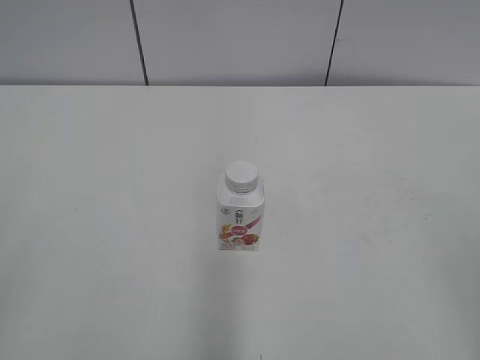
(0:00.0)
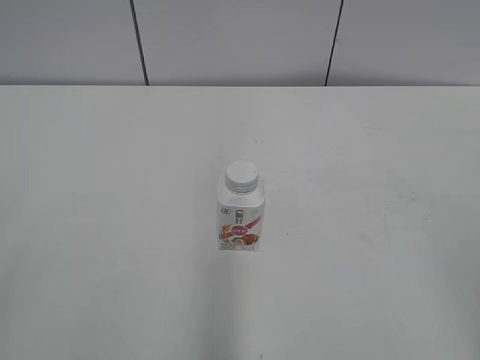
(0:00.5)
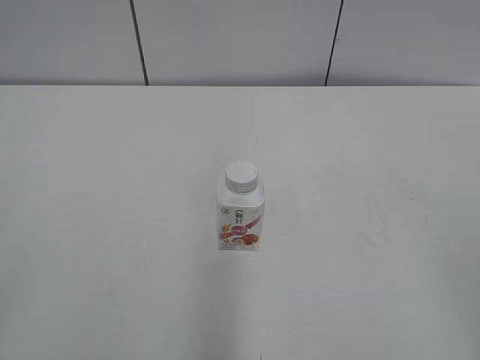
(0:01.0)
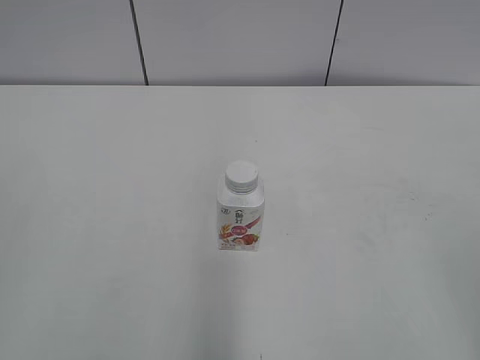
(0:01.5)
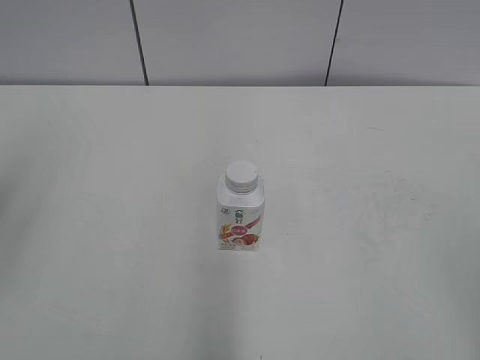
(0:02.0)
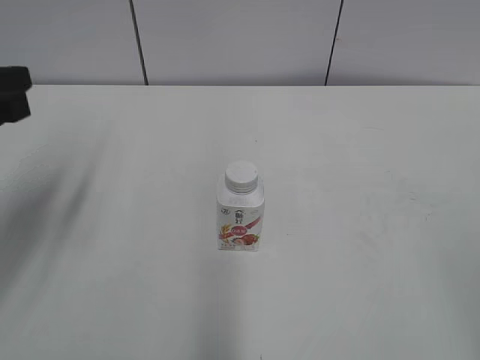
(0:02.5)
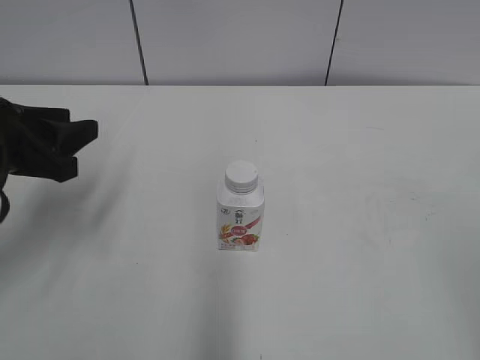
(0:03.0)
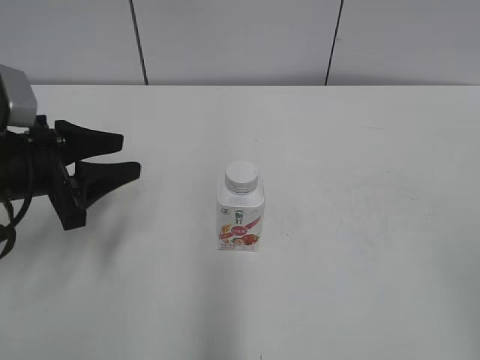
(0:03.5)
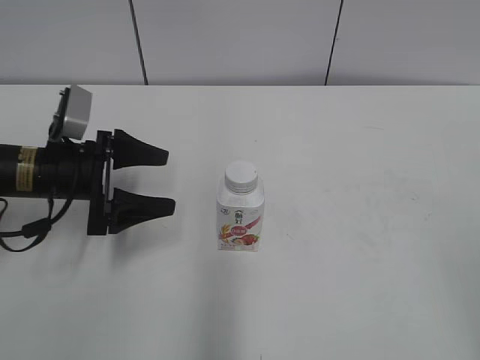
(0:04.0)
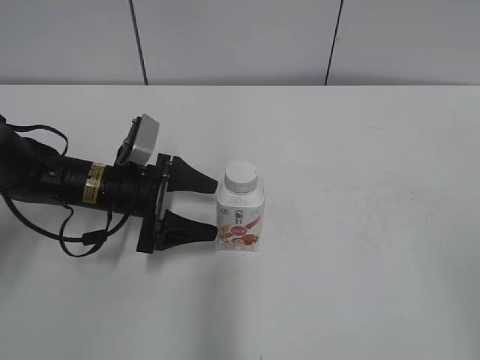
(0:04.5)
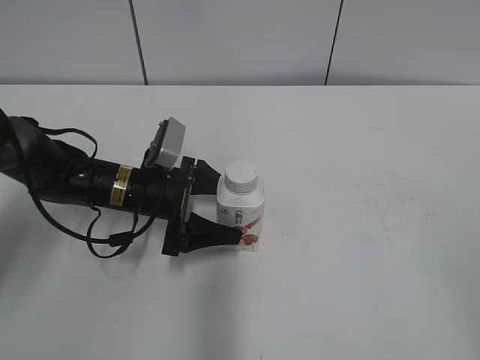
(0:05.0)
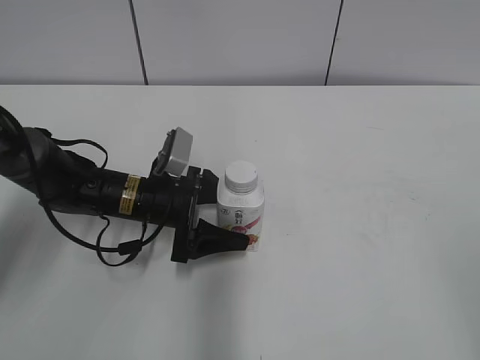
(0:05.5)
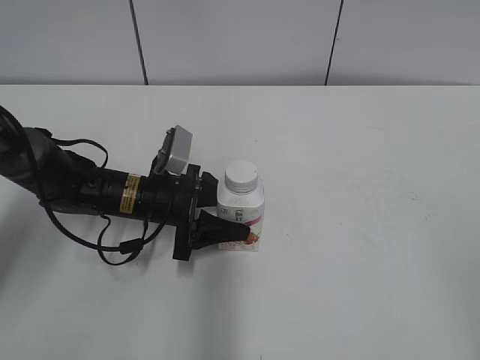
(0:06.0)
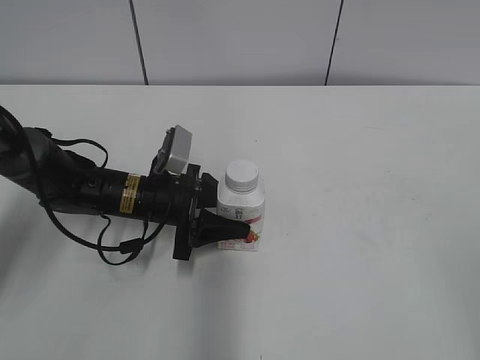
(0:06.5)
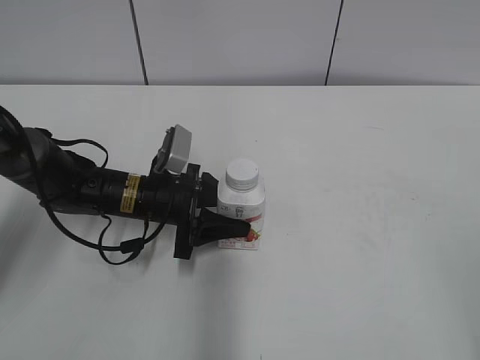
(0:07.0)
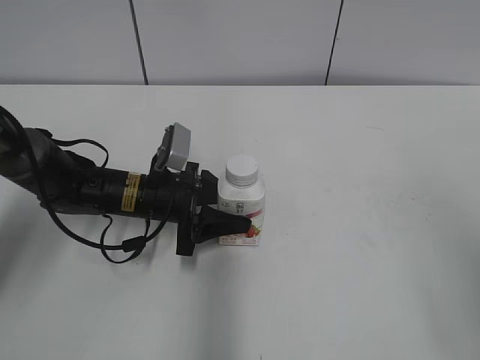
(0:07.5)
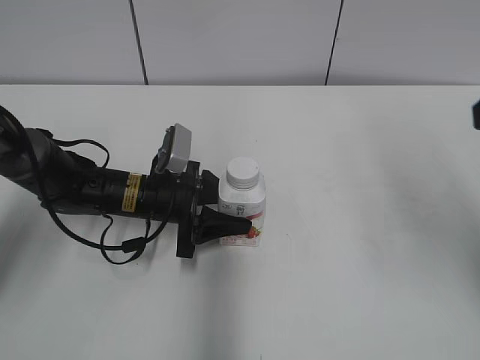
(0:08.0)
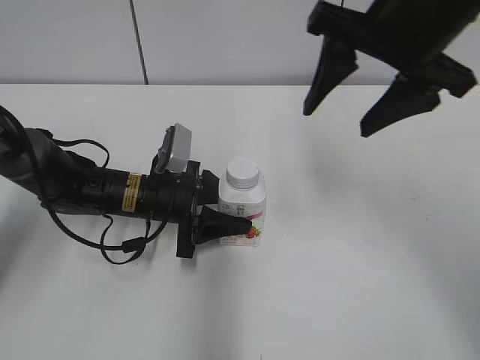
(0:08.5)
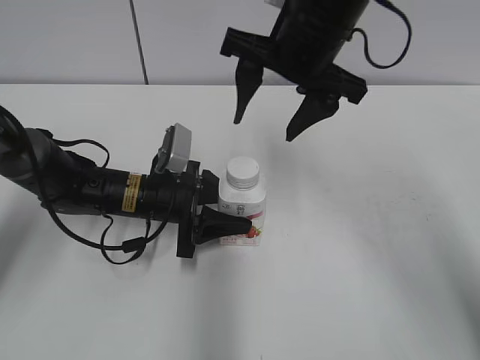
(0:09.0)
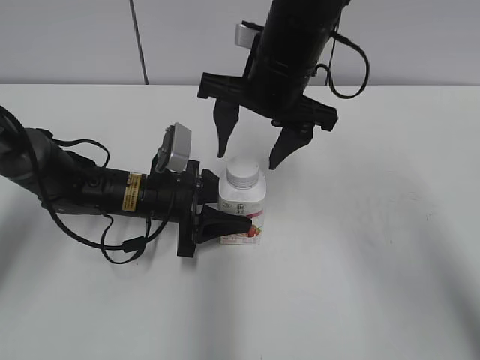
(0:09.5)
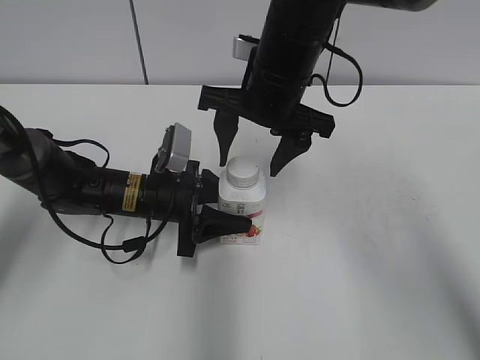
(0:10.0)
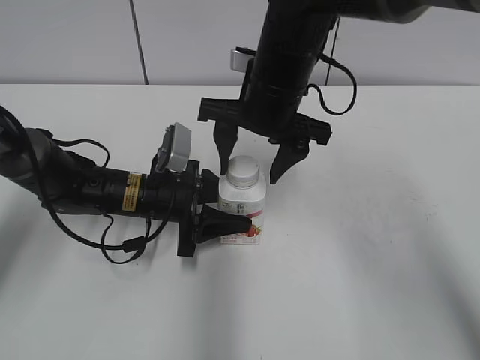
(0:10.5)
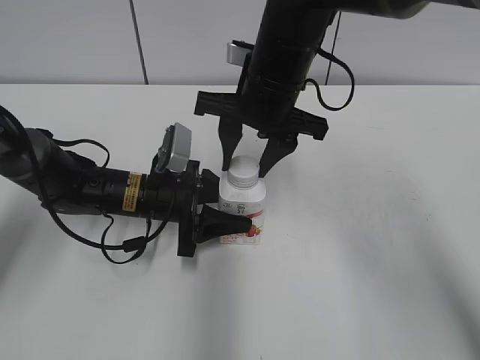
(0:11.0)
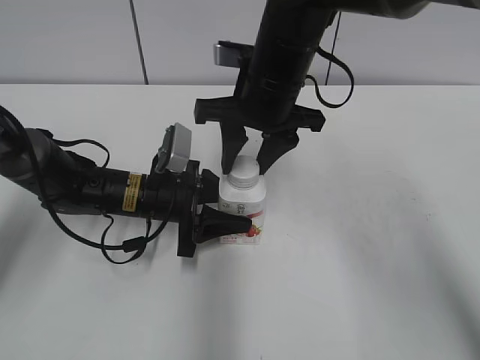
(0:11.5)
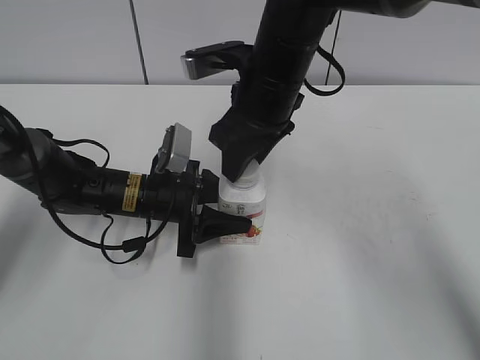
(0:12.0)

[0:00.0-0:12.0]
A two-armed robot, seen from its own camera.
Step, 0:00.0 to 0:07.0: Grasp the bottle and move it to the center of the table with the left gripper.
0:02.0 to 0:04.0: The left gripper moves downward and forward, roughly 30 cm, and opens.
0:04.0 to 0:06.0: The left gripper heads to the right and downward, covering some 10 cm, and closes up.
0:06.0 to 0:08.0: The right gripper goes some 20 cm forward.
0:08.0 to 0:10.0: The right gripper goes about 30 cm to the left, forward and downward.
0:10.0 to 0:12.0: The right gripper closes its fingers.

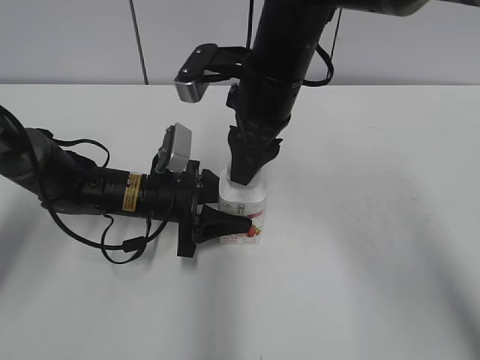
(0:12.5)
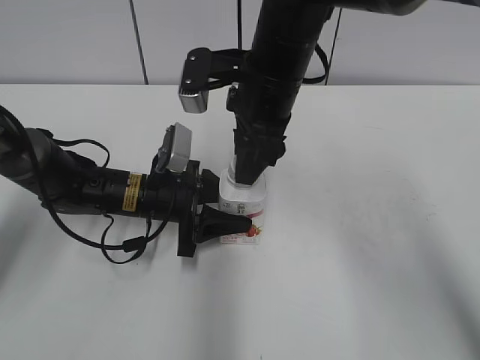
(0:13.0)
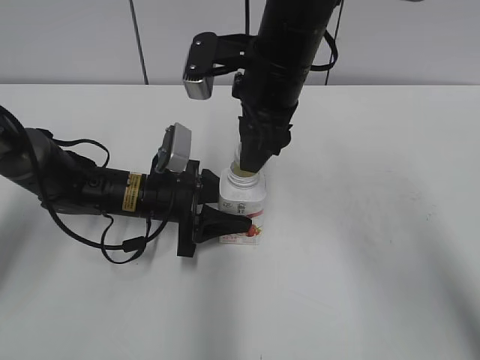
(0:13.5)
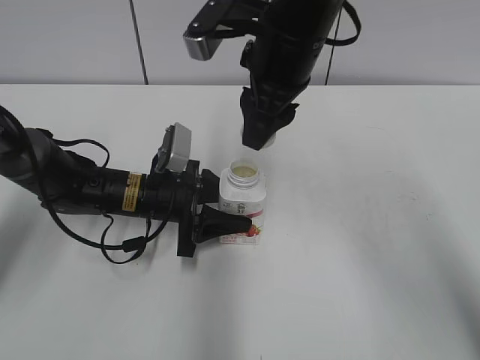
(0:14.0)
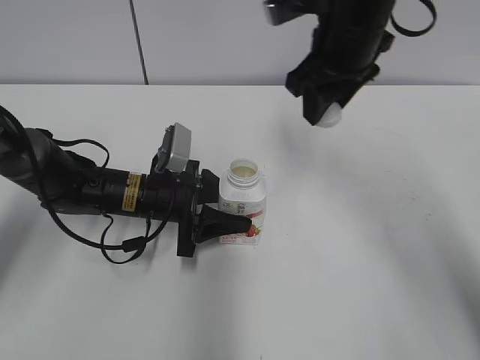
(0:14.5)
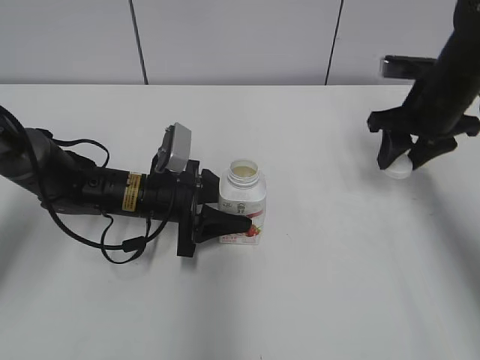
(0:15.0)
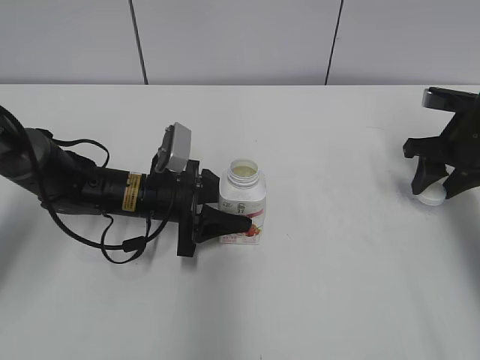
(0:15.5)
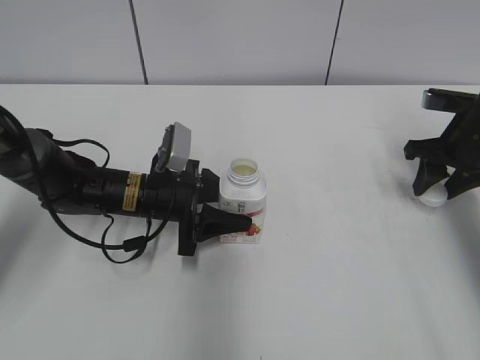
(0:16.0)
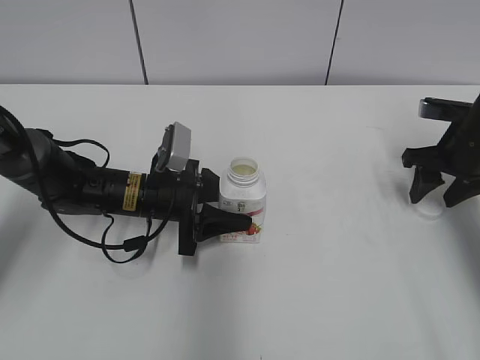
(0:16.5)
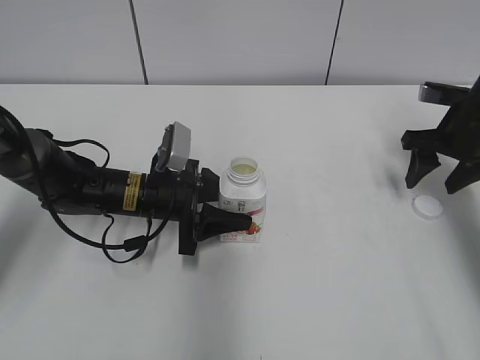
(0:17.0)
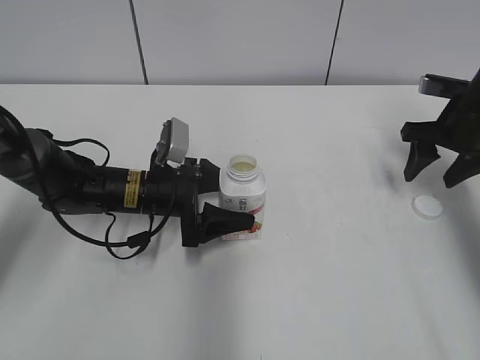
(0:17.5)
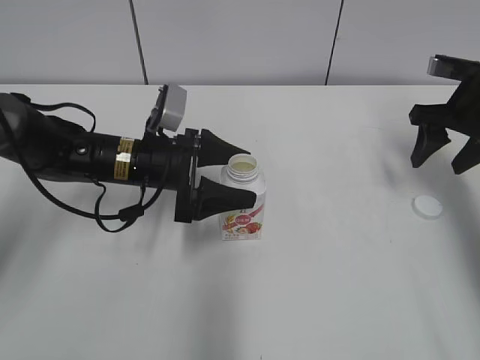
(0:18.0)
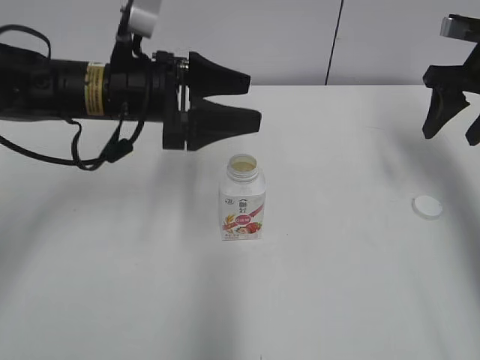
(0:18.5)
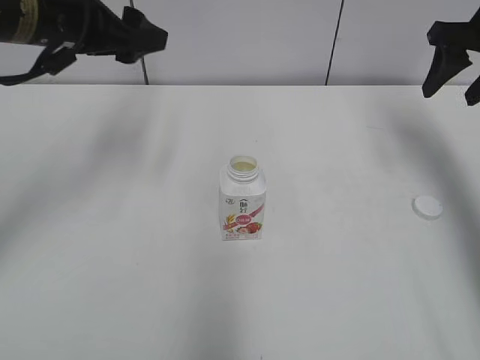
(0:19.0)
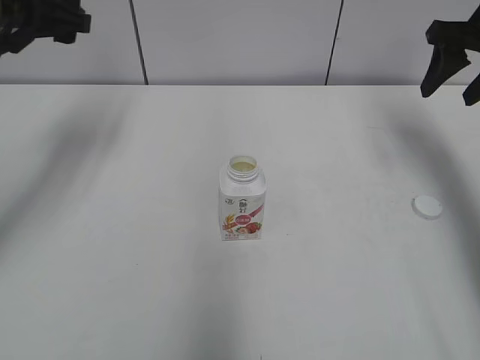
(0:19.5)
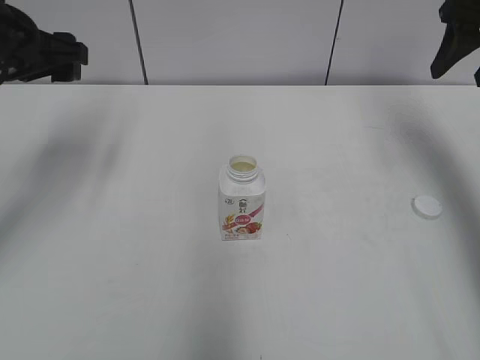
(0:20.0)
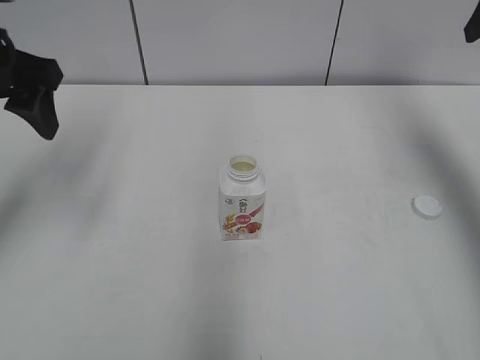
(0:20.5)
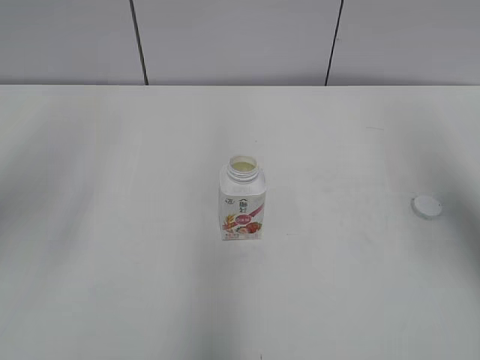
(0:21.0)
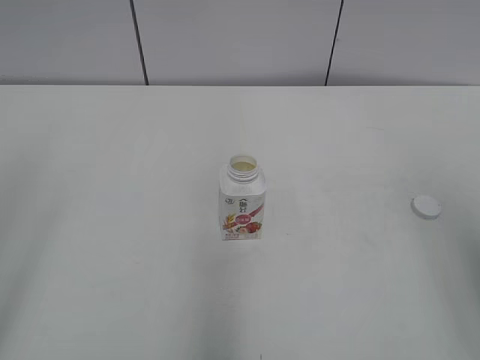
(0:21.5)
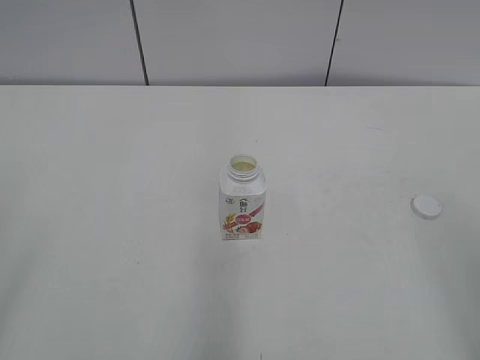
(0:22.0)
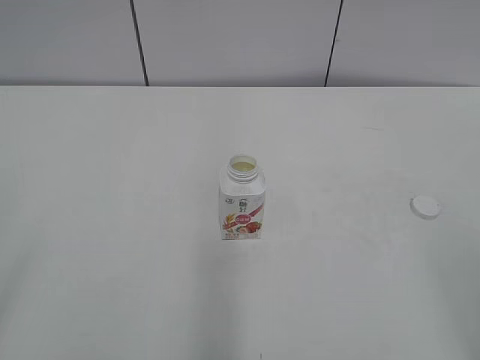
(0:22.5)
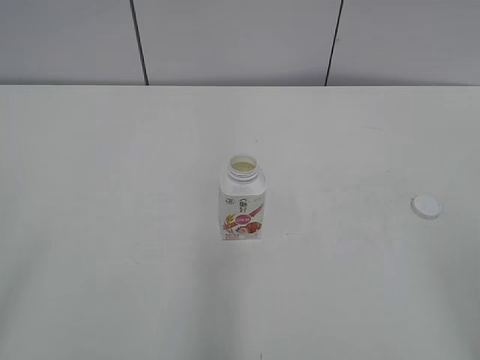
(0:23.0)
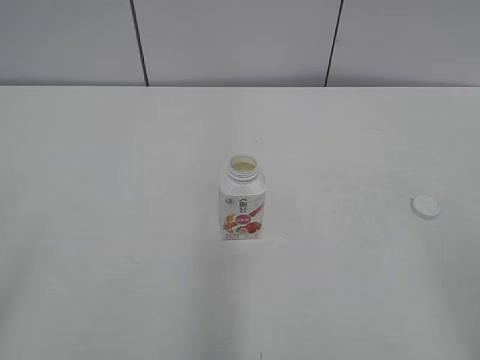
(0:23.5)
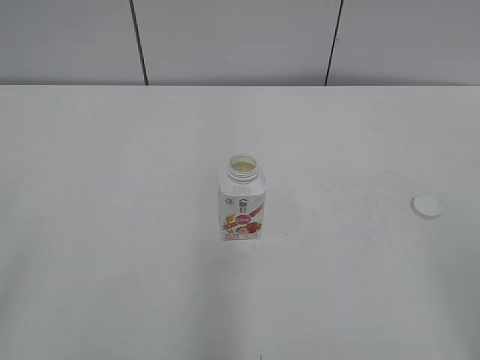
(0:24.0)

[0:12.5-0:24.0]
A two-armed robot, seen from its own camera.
Step, 0:14.5 to 0:16.5: Place the bottle cap on the table with the right gripper.
Step, 0:17.0 to 0:18.0: Place the bottle on the table with the left gripper.
0:12.5 to 0:14.5: The right gripper heads to the right, covering roughly 5 cm.
0:14.5 to 0:16.5: The right gripper goes about 25 cm to the right and downward.
0:16.5 to 0:18.5: Both grippers travel together upward, approximately 15 cm. The left gripper opens. The right gripper opens its fingers.
0:18.5 to 0:20.0: The left gripper goes approximately 15 cm to the left and upward. The right gripper heads upward, covering some 5 cm.
0:20.0 to 0:22.0: Both grippers move backward, approximately 35 cm.
